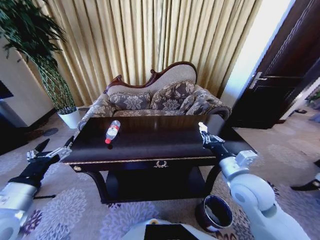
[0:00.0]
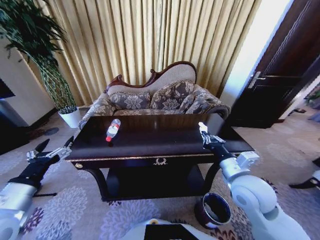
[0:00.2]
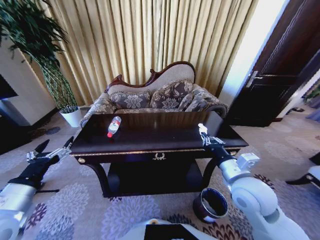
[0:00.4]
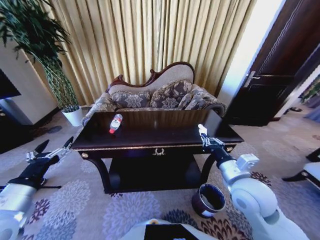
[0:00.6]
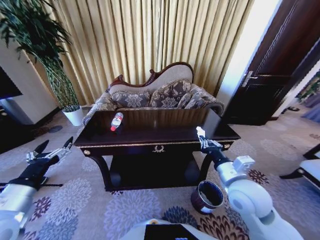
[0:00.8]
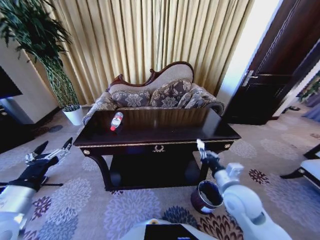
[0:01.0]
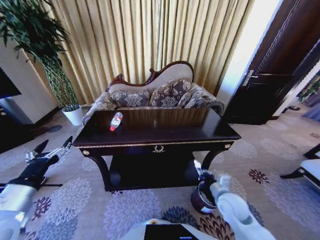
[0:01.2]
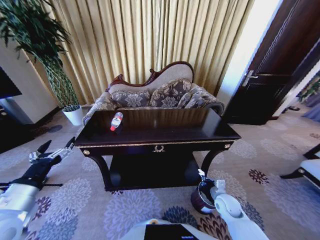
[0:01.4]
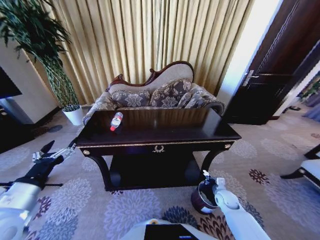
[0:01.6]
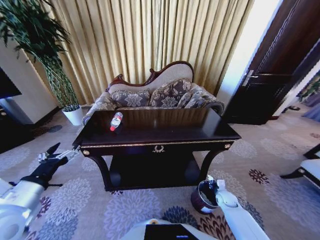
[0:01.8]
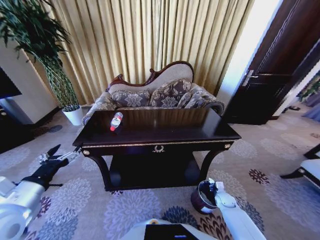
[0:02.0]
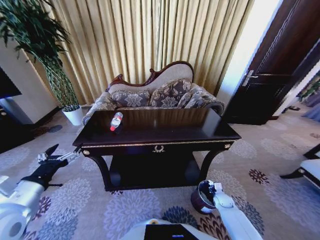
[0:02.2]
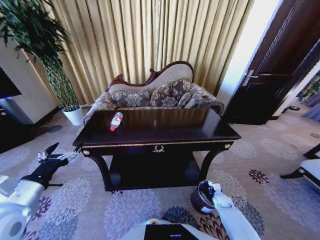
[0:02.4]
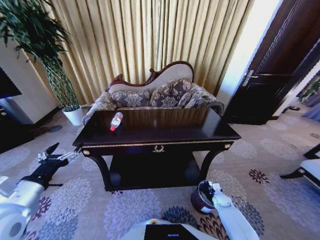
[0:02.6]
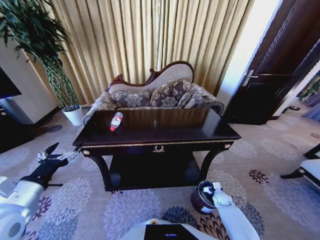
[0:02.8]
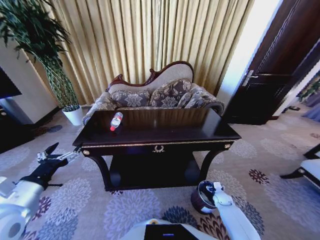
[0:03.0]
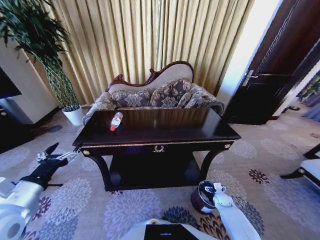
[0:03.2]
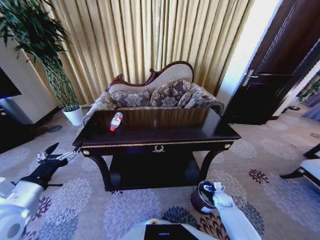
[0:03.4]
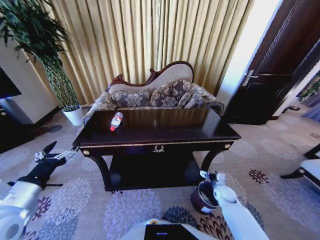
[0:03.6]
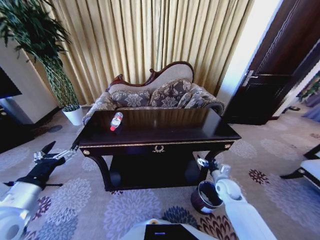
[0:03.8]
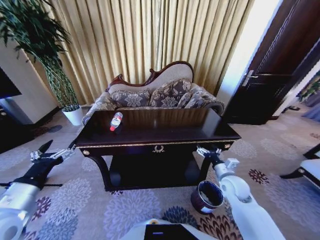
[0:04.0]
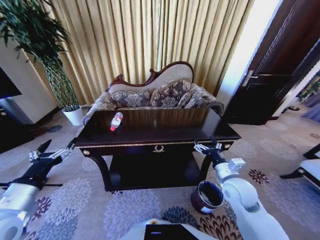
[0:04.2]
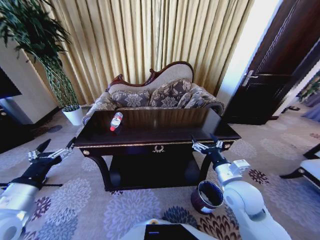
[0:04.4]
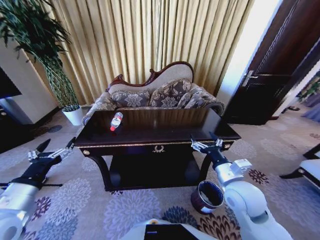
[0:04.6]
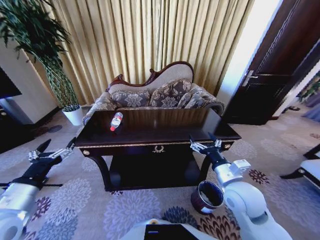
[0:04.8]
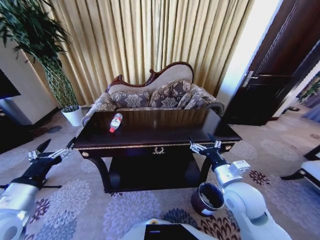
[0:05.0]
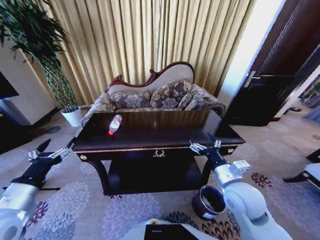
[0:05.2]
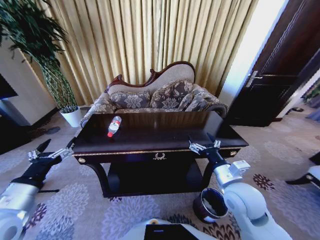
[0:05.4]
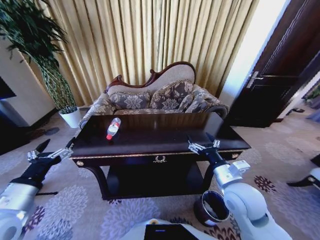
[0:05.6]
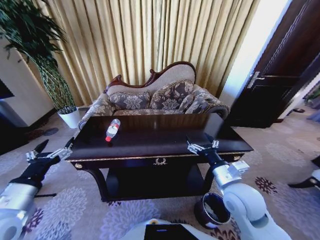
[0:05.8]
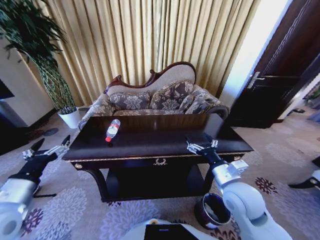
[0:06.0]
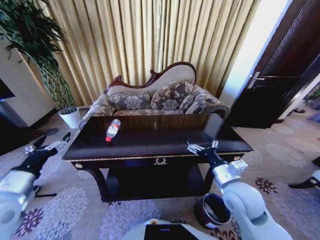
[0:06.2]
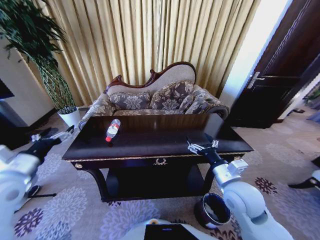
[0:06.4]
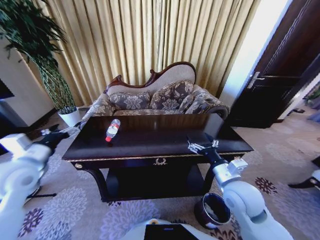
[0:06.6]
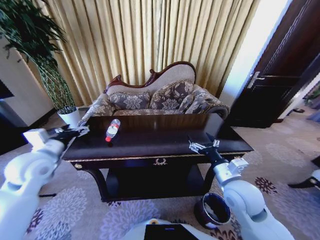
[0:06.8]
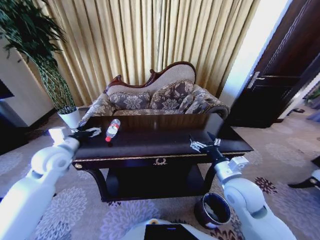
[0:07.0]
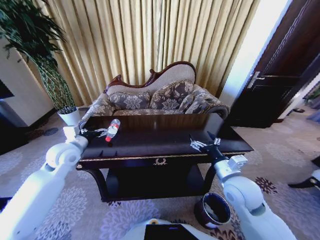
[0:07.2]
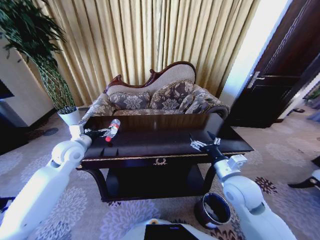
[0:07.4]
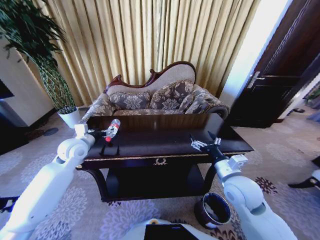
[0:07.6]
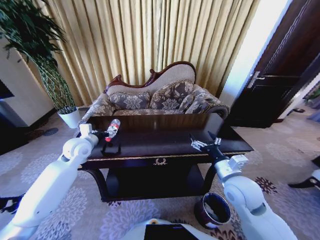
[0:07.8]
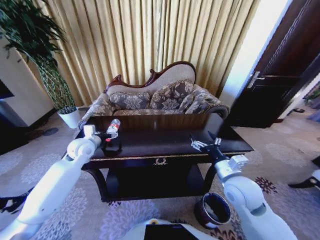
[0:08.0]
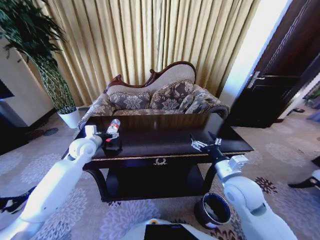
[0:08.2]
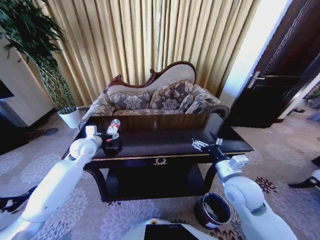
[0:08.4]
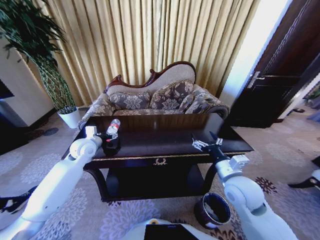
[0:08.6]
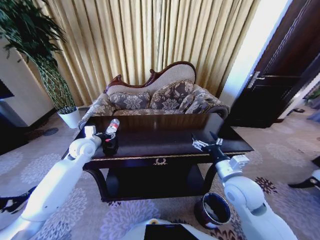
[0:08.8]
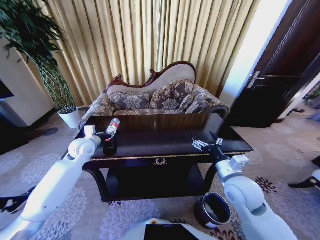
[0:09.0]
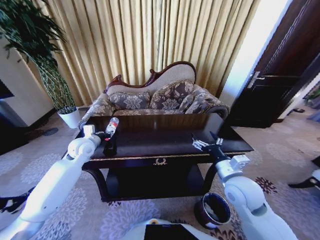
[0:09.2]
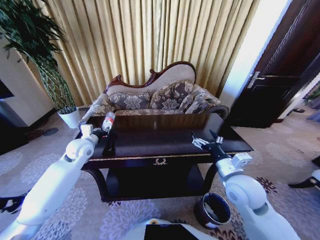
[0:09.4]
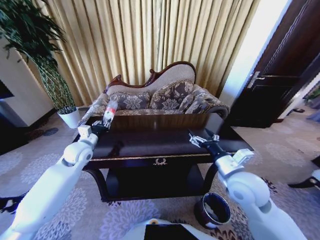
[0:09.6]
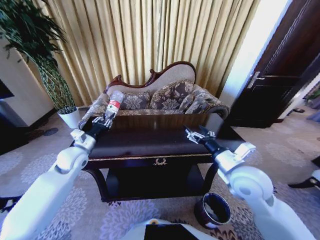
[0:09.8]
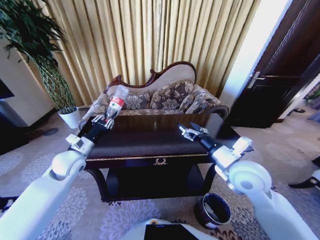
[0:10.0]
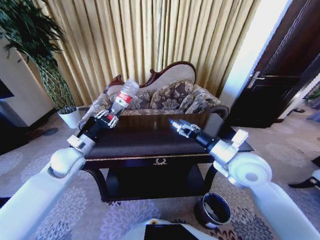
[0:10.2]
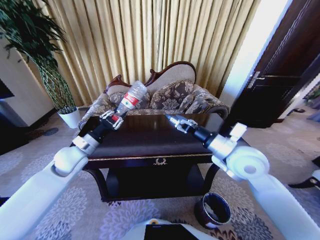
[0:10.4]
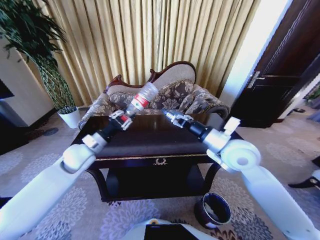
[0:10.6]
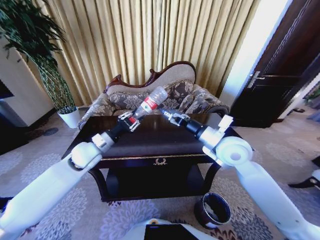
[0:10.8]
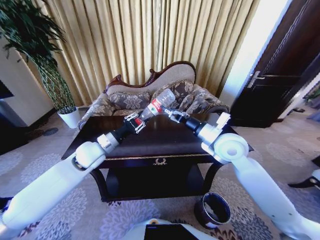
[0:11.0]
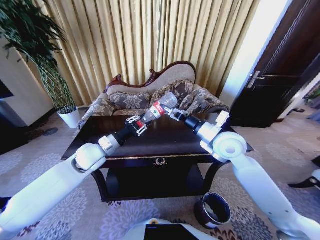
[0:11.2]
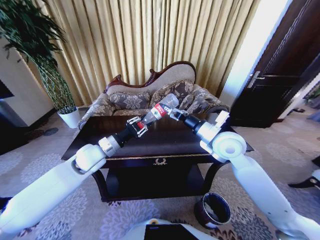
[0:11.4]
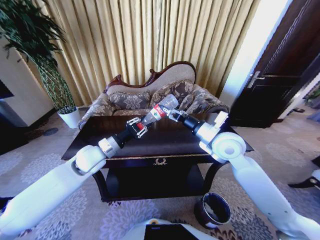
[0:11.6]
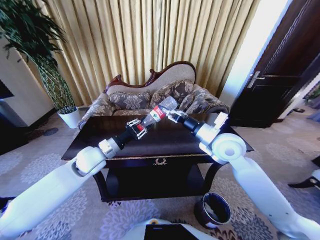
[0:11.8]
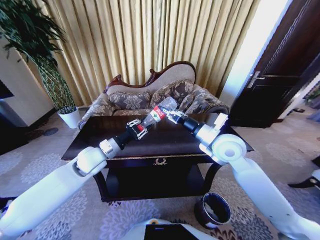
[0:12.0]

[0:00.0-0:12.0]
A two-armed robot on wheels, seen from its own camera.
Task of the whole recording: Move to the front of the table and place the trash on the table into the trash bin.
0:00.0 to 0:01.6: The right gripper is displaced downward by roughly 30 cm.
0:01.6 to 0:03.0: The right gripper travels downward by approximately 10 cm, and opens up.
0:03.0 to 0:04.4: The right gripper travels upward by about 35 cm.
0:06.0 to 0:07.6: The left gripper moves forward, roughly 25 cm.
0:07.6 to 0:09.0: The left gripper closes its fingers.
0:09.0 to 0:10.4: The left gripper moves backward, some 5 cm. Meanwhile the right gripper moves upward and forward, about 10 cm.
0:10.4 to 0:12.0: The right gripper moves forward, roughly 5 cm, and closes its fingers, while the left gripper travels to the right by approximately 5 cm.

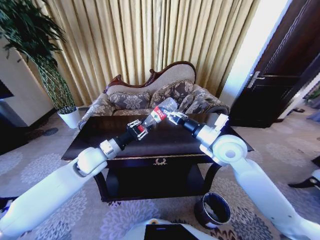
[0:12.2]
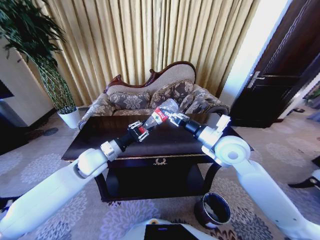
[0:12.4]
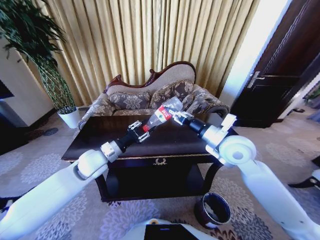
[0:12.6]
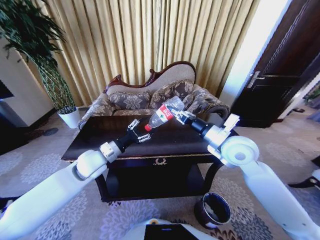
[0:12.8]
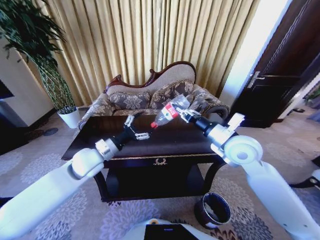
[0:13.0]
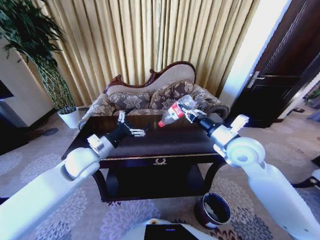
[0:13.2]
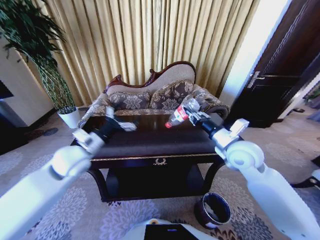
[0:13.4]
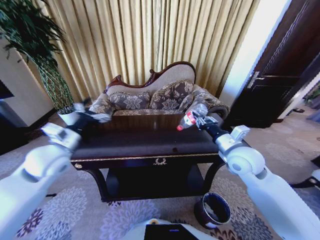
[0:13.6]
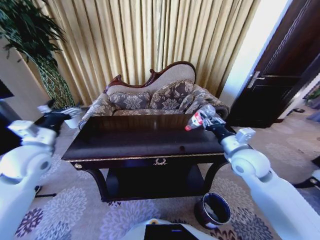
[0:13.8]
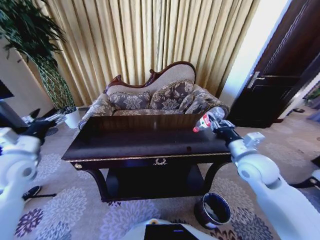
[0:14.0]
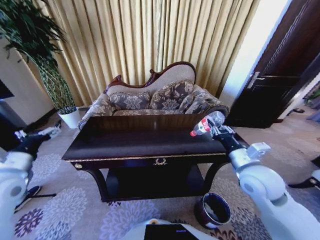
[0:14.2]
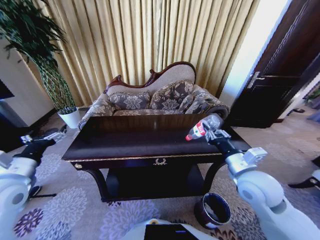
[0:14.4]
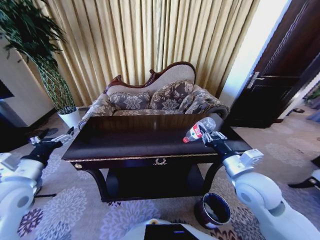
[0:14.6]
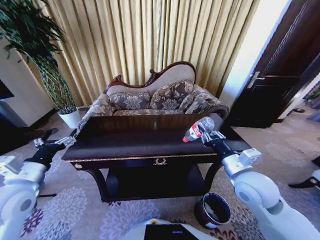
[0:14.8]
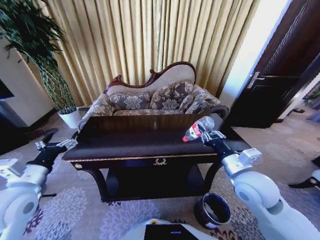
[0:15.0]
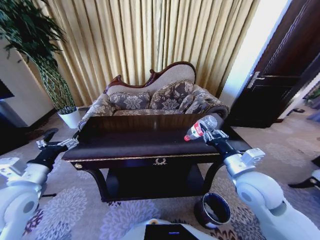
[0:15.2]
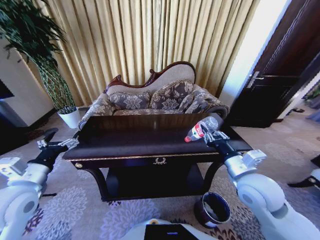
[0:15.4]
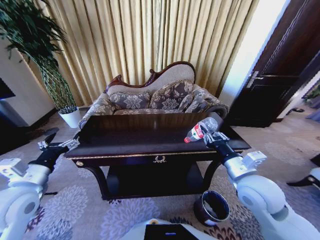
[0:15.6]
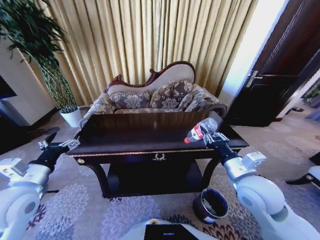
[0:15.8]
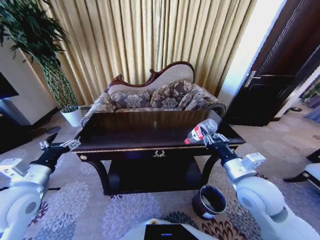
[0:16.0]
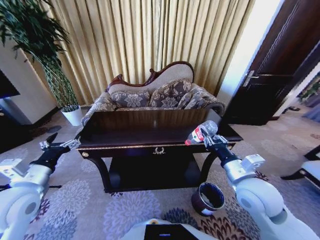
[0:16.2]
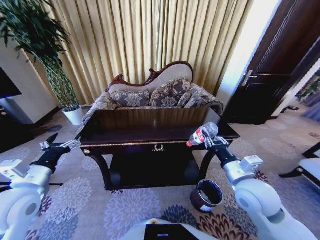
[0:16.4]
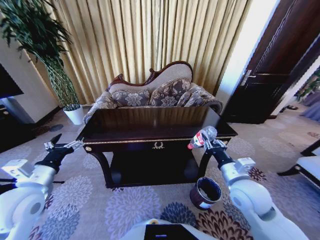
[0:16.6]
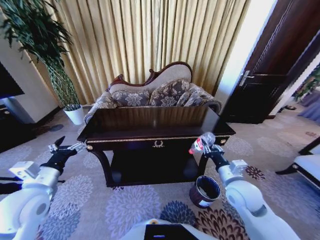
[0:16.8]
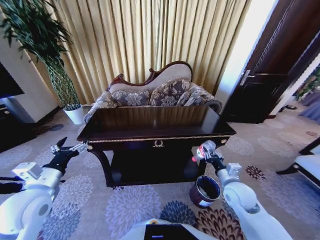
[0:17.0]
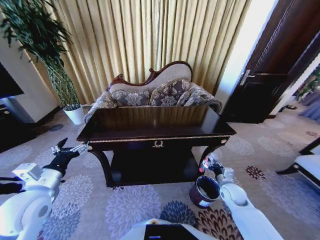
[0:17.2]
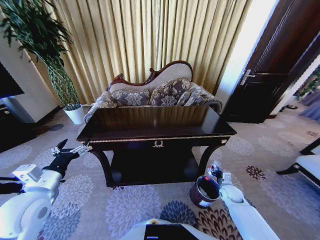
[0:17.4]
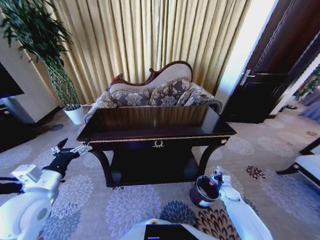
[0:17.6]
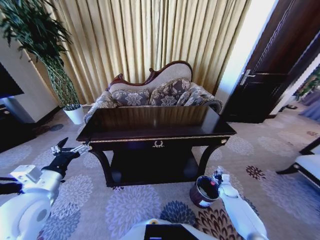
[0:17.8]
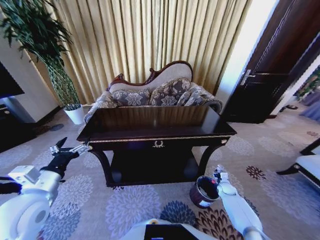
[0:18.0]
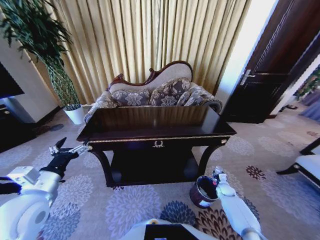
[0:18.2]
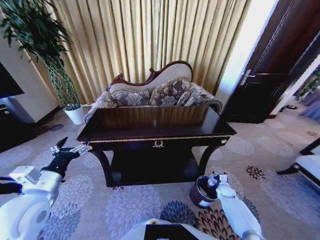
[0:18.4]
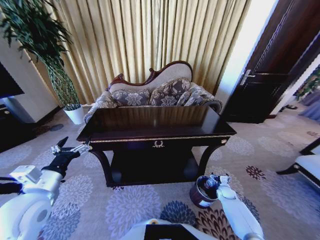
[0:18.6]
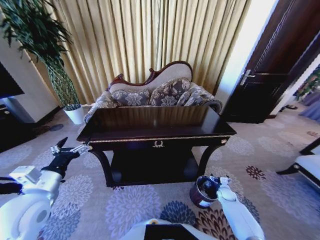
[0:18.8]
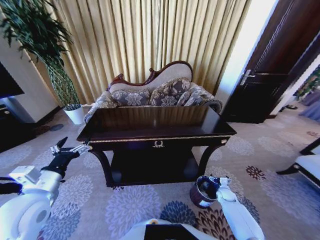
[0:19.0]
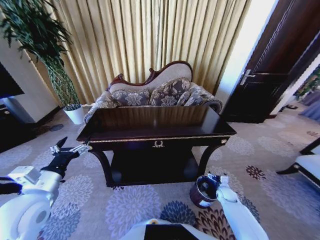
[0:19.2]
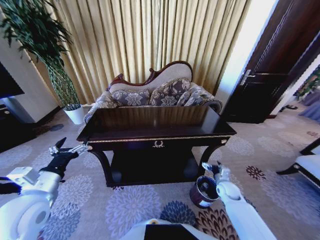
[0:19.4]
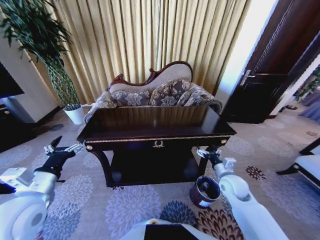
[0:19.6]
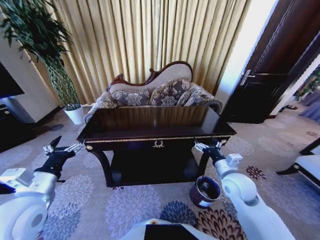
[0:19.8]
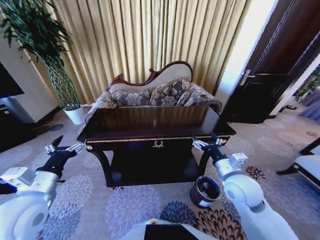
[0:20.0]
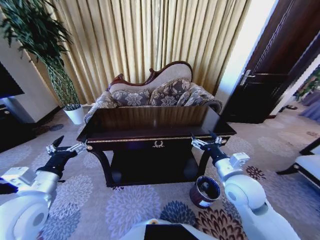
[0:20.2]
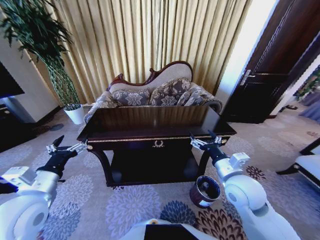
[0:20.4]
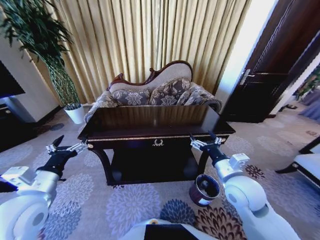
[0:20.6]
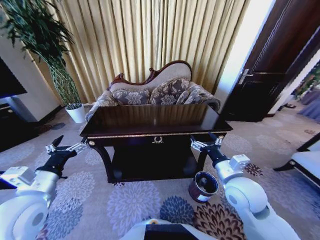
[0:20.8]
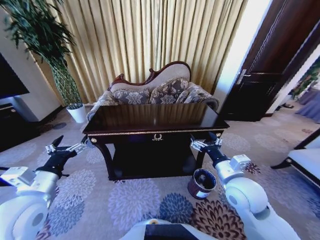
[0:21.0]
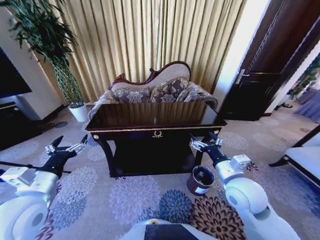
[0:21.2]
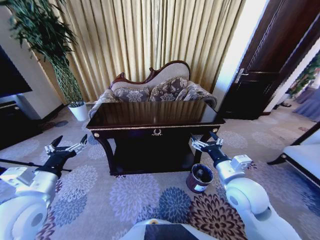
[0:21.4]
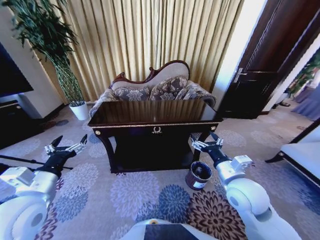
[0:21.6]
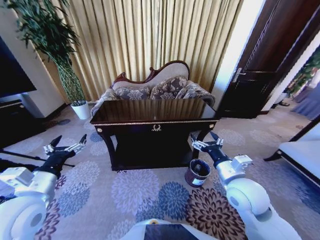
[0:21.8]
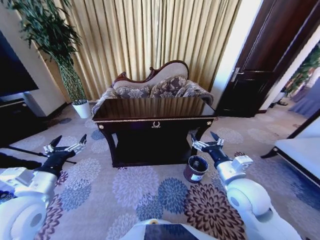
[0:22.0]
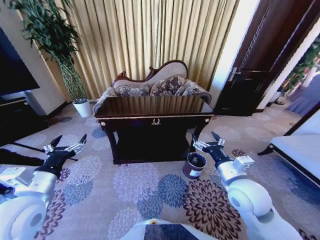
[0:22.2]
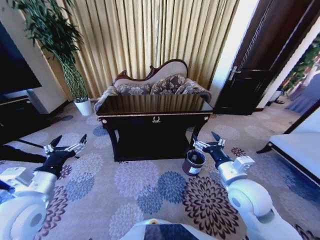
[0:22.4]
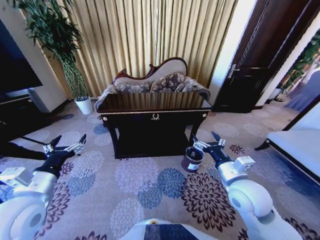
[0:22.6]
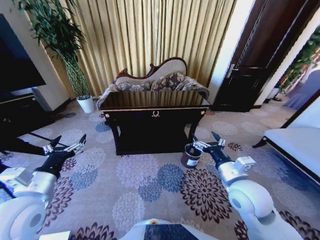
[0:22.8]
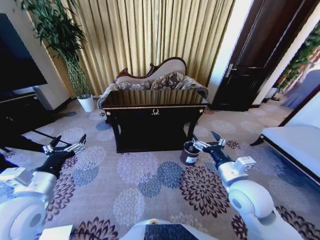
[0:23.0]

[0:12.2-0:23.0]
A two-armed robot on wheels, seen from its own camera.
Task of the whole recording: Move to the front of the table and place the trash on the table into the trash bin.
0:12.2 to 0:13.8: The left gripper travels to the left and upward by approximately 15 cm, and opens its fingers; the right gripper goes roughly 5 cm to the right.
0:13.8 to 0:15.2: The two grippers go approximately 10 cm backward.
0:15.2 to 0:16.8: The right gripper goes about 10 cm downward.
0:16.8 to 0:18.4: The right gripper goes approximately 35 cm downward and to the right, and opens.
0:18.4 to 0:20.0: The right gripper travels upward and to the left by about 40 cm.
